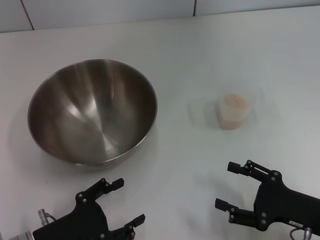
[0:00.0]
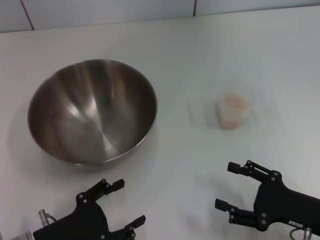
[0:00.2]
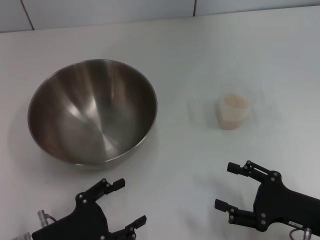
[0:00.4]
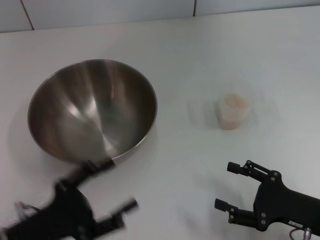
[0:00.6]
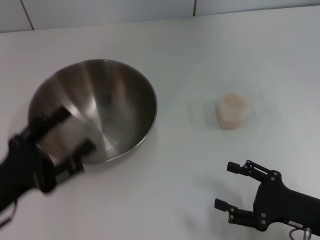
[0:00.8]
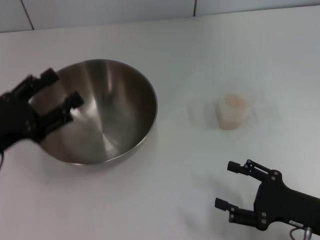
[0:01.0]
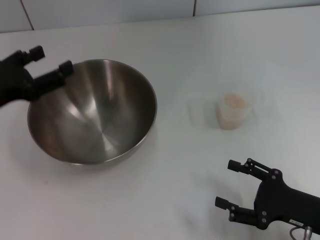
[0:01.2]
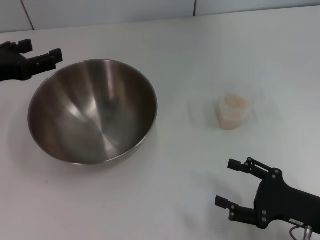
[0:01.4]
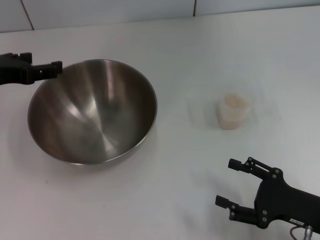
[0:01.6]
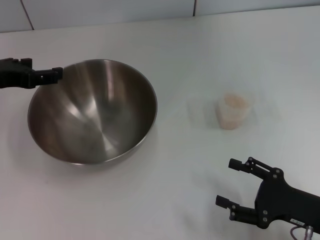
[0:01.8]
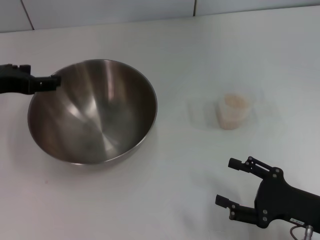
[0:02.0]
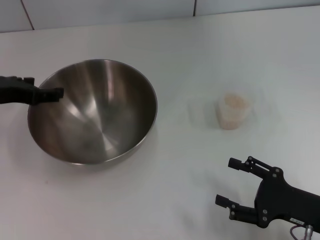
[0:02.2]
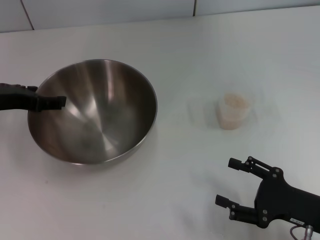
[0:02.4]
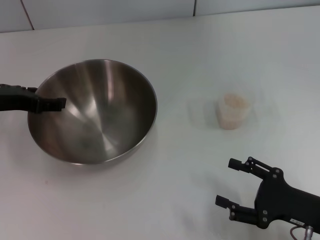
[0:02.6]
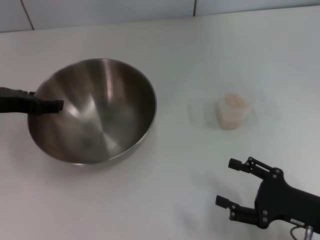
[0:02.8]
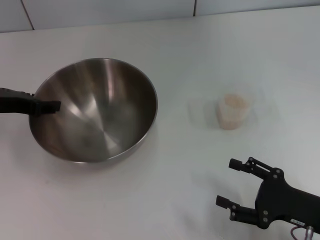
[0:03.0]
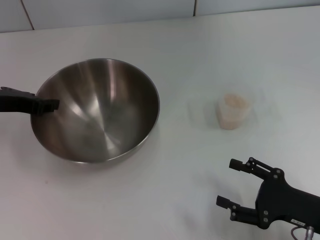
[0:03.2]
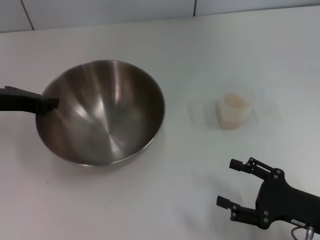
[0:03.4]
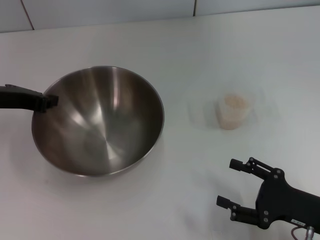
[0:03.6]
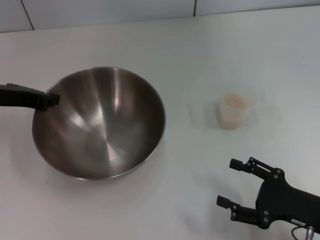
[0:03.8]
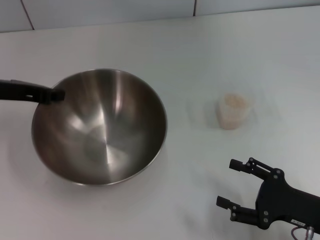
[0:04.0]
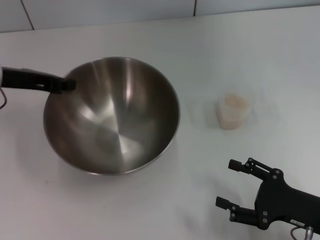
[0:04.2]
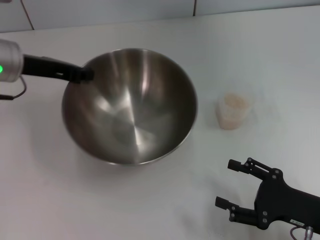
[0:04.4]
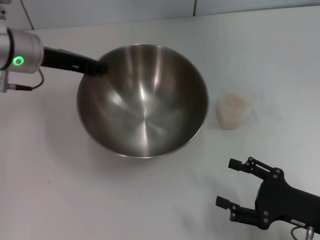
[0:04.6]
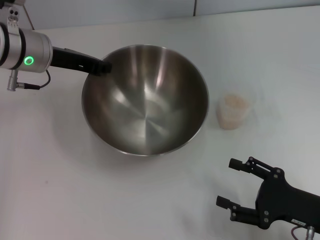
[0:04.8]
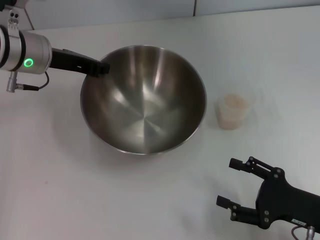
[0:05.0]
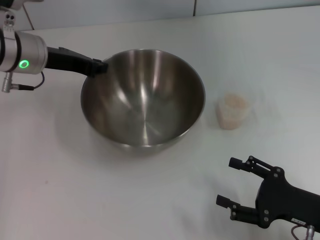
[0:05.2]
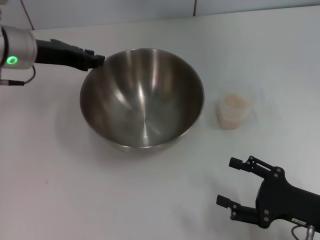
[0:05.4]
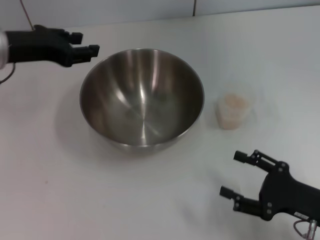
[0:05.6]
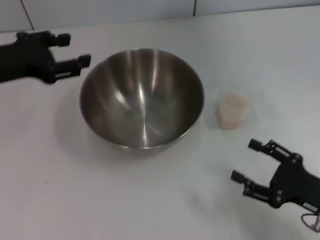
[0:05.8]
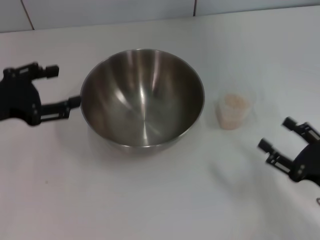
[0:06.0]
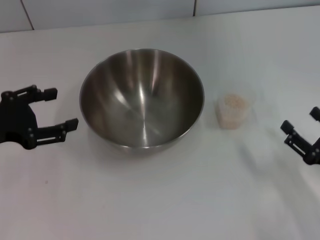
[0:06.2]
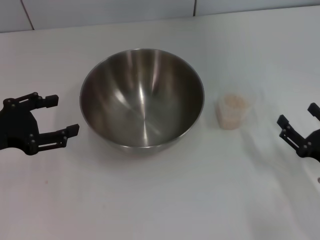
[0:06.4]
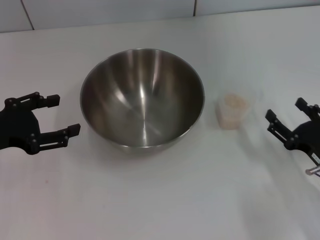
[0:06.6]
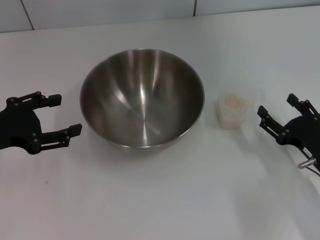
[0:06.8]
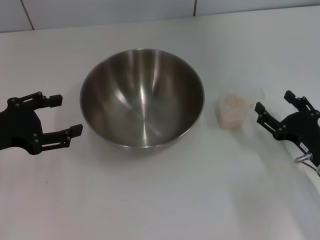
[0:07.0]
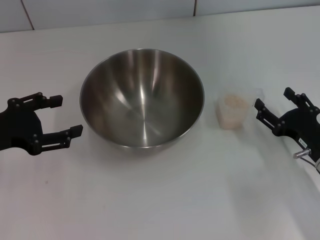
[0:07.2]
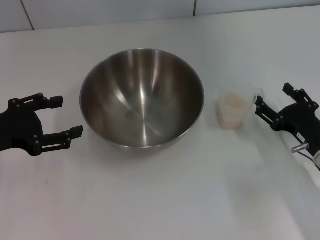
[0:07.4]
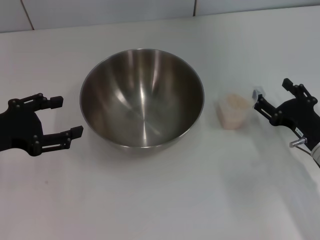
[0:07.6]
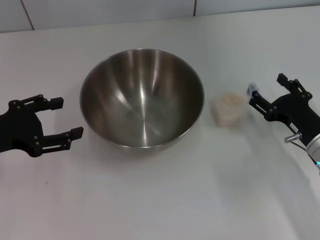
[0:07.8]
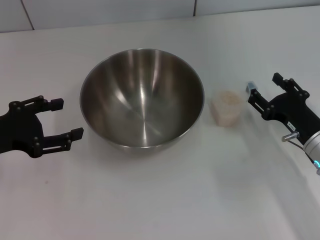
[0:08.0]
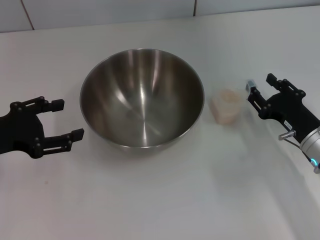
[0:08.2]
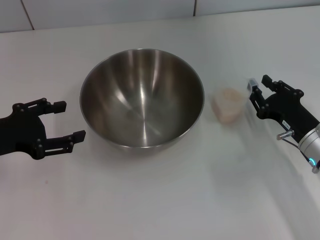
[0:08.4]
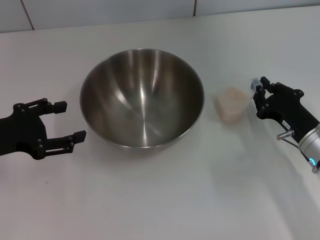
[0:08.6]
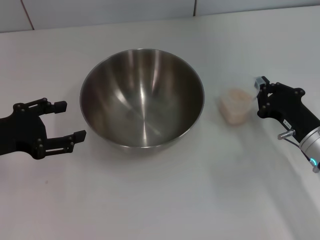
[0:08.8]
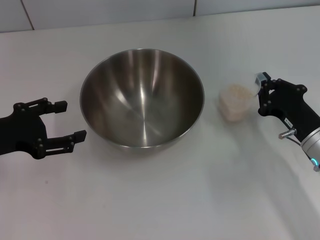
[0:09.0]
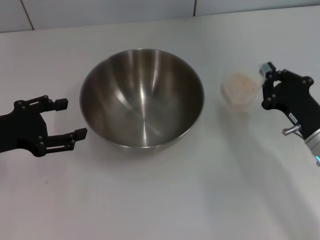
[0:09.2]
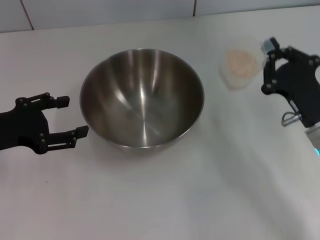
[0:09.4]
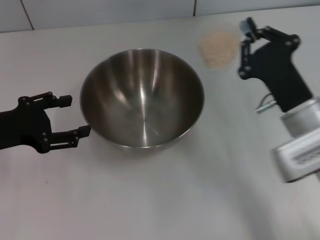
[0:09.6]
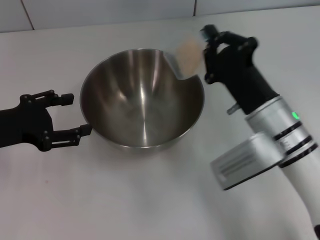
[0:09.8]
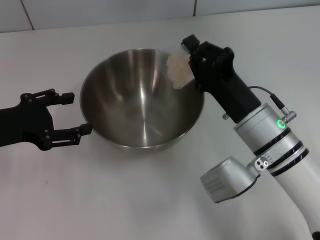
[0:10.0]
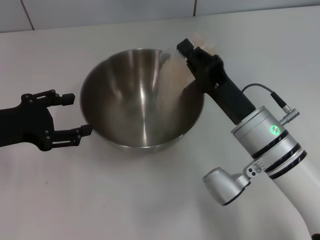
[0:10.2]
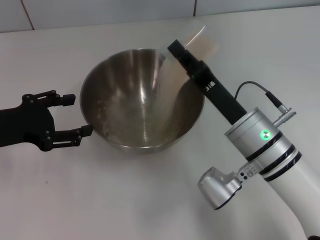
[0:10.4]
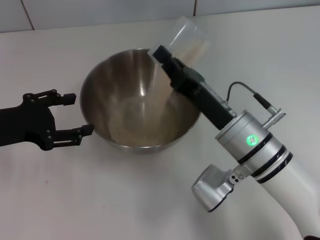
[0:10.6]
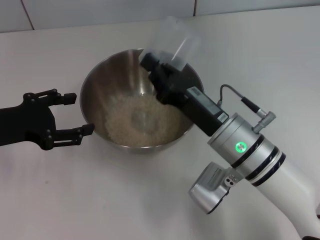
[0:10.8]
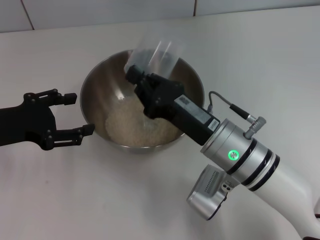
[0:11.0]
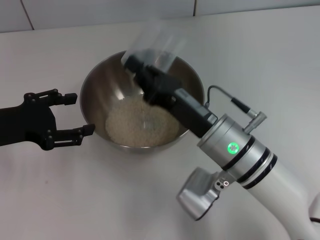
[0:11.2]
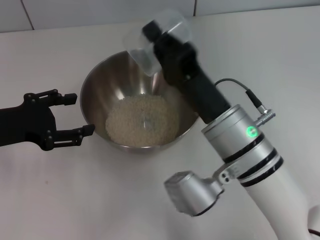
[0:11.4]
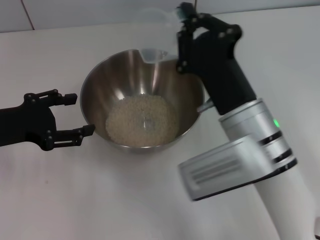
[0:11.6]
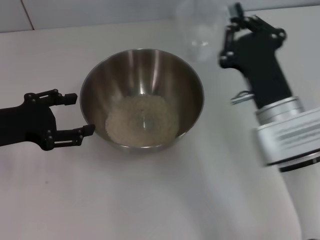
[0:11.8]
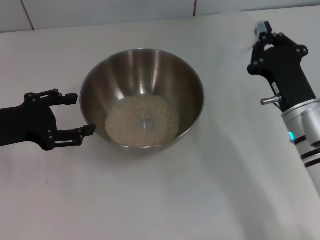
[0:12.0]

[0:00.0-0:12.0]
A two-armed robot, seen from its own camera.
Task of the whole recording: Place the bowl in the middle of the table with one hand and pour the rice from the grain cup into it with the other hand.
Step, 0:00.0 to 0:04.0: Pick up the bowl with the left gripper.
Step, 0:04.2 to 0:05.6: Place the bowl in the center of view with the left gripper.
Step, 0:05.8 to 0:09.2: Pick up the cup with rice in it with the right gripper.
0:00.0 to 0:01.6: The left gripper moves upward and forward, approximately 25 cm.
0:01.6 to 0:03.0: There are only small adjustments of the grippers.
0:03.0 to 0:04.4: The left gripper travels to the right by about 5 cm, and closes up.
0:04.4 to 0:06.0: The left gripper goes some 10 cm backward and to the left, and opens.
0:06.0 to 0:07.6: The right gripper moves forward, some 10 cm.
0:07.6 to 0:09.0: The right gripper closes up.
0:09.0 to 0:10.4: The right gripper goes about 15 cm to the left and upward.
0:10.4 to 0:12.0: The right gripper is displaced to the right by roughly 5 cm.

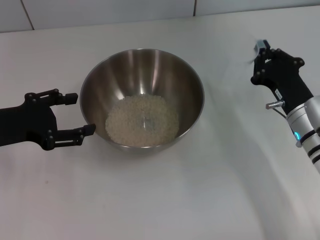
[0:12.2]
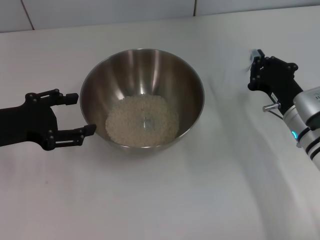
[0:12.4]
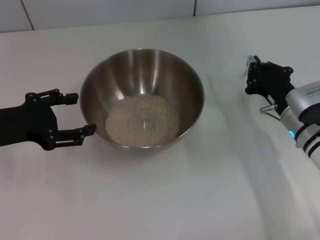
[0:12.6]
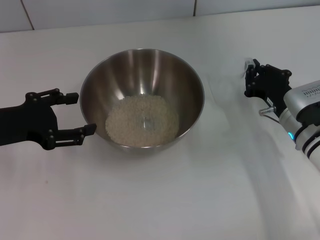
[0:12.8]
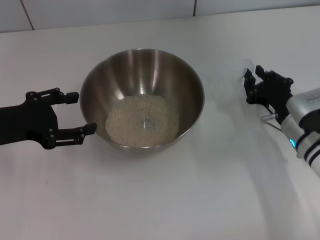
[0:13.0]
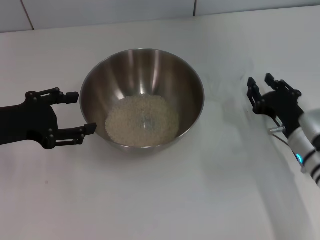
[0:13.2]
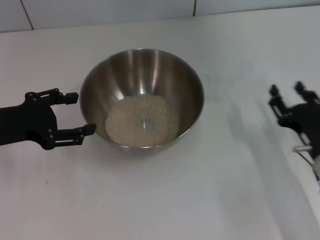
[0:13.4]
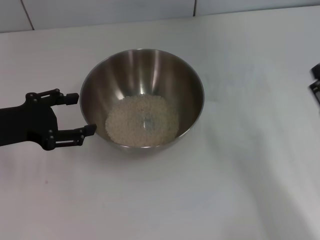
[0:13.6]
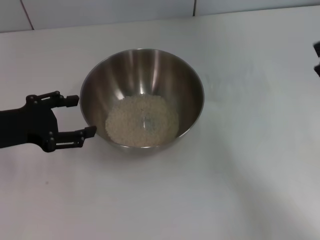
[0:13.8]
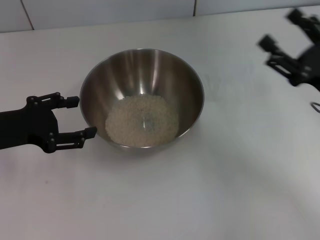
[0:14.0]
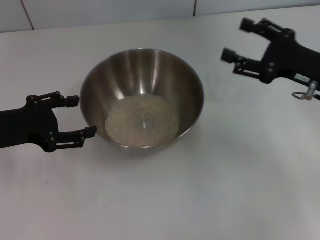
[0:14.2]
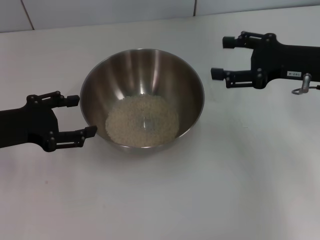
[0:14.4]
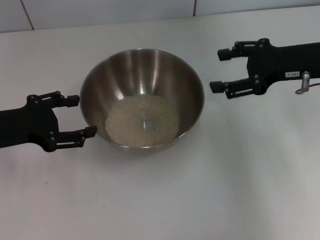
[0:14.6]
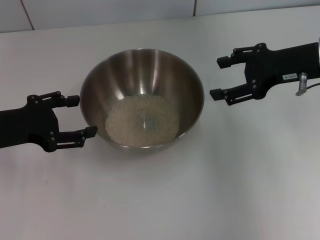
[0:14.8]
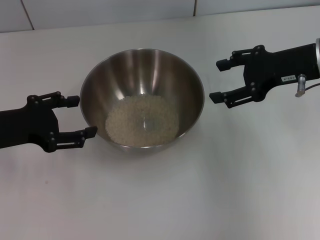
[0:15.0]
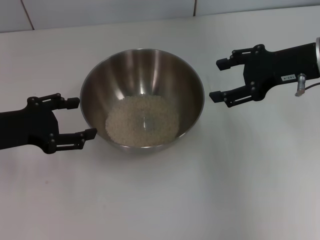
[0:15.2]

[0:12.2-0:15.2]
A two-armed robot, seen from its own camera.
Task of the whole recording: Place the bowl in the middle of the table with one hand and pour the rice from the grain cup into it with the other hand.
Step, 0:12.2 to 0:13.2: Place the cup on the table with the right gripper.
0:12.2 to 0:13.8: The right gripper shifts some 10 cm backward and to the right, and opens up.
0:13.8 to 0:15.2: The right gripper shifts approximately 20 cm forward and upward.
